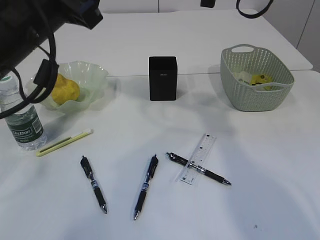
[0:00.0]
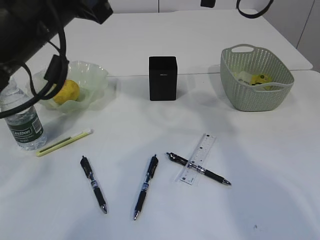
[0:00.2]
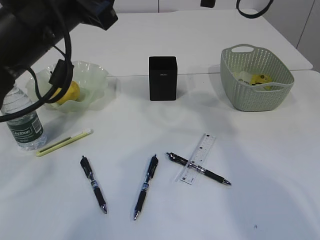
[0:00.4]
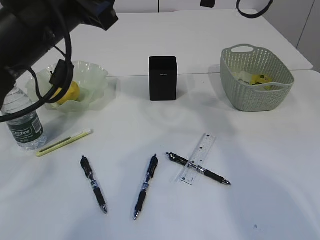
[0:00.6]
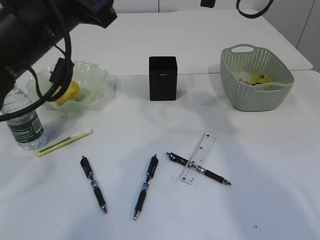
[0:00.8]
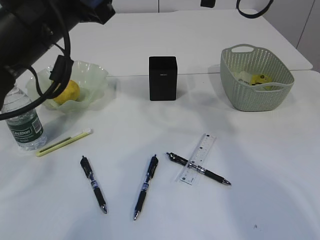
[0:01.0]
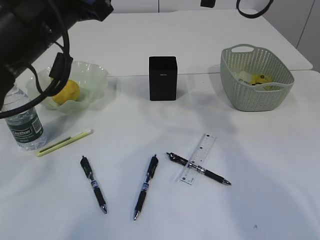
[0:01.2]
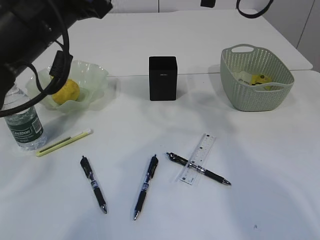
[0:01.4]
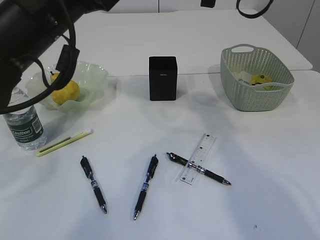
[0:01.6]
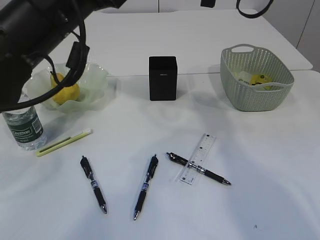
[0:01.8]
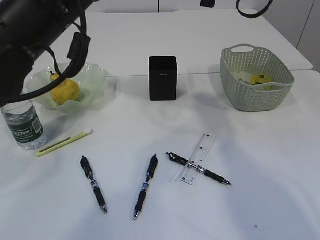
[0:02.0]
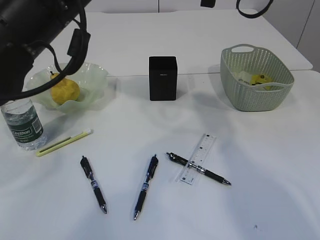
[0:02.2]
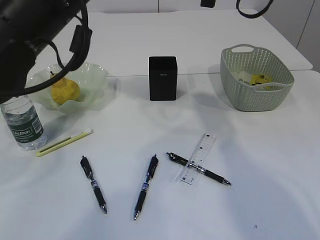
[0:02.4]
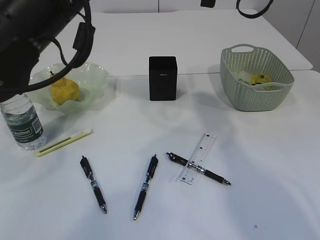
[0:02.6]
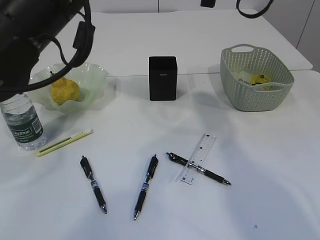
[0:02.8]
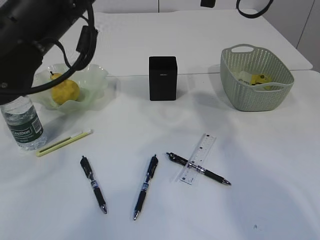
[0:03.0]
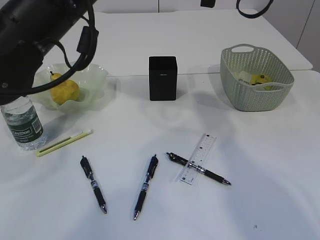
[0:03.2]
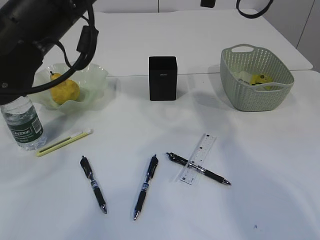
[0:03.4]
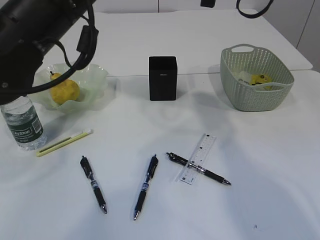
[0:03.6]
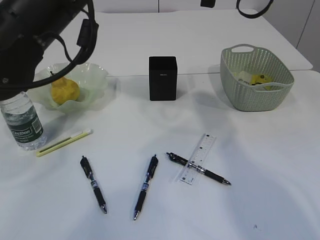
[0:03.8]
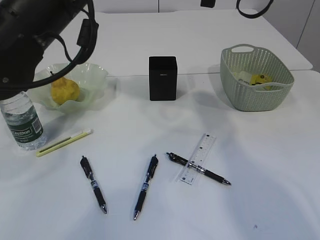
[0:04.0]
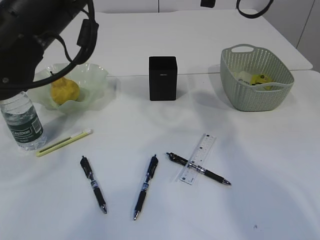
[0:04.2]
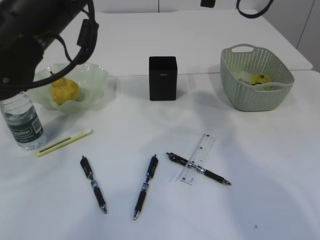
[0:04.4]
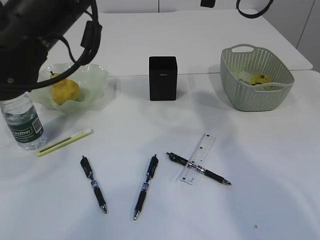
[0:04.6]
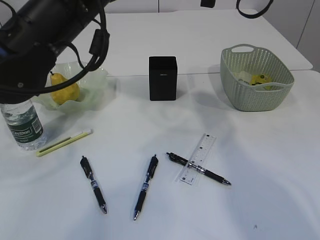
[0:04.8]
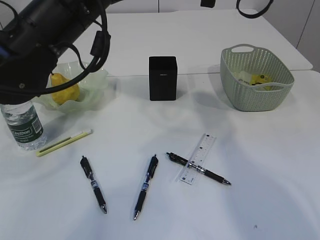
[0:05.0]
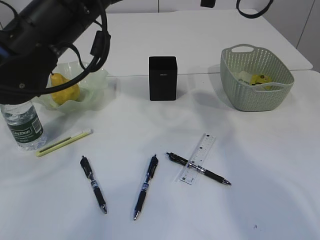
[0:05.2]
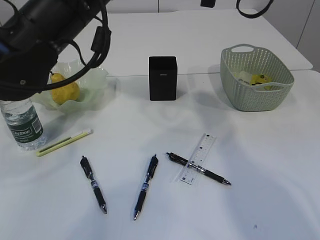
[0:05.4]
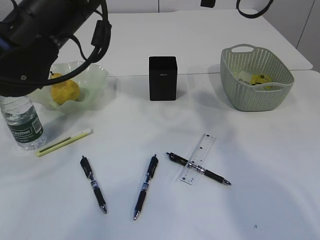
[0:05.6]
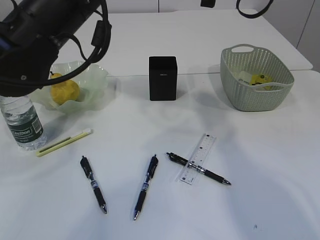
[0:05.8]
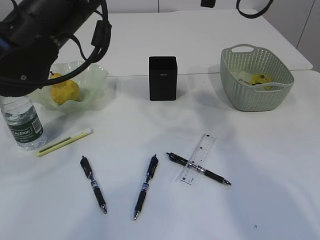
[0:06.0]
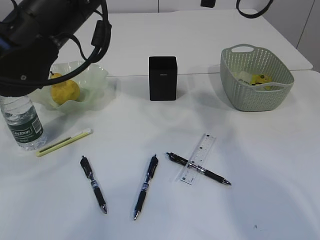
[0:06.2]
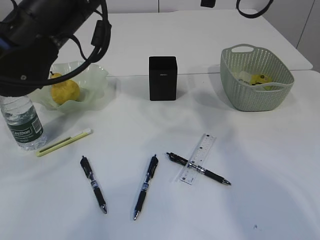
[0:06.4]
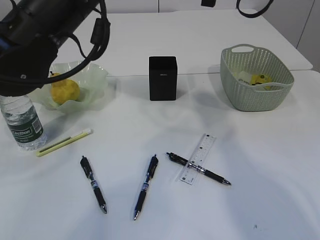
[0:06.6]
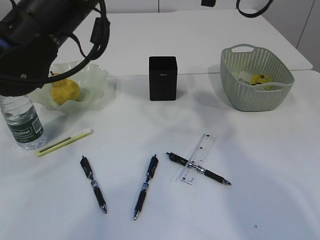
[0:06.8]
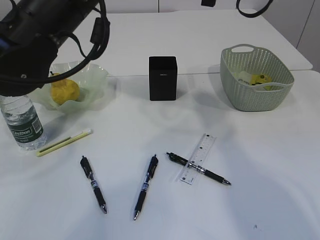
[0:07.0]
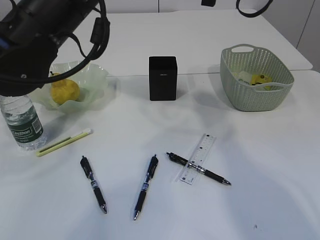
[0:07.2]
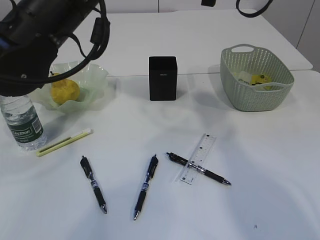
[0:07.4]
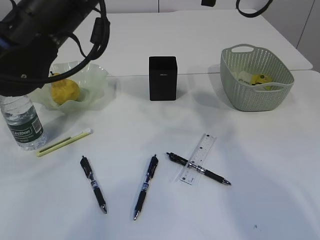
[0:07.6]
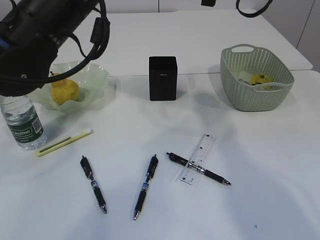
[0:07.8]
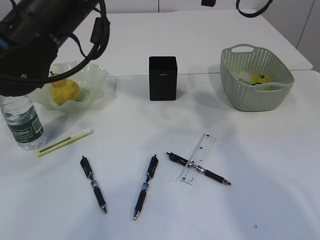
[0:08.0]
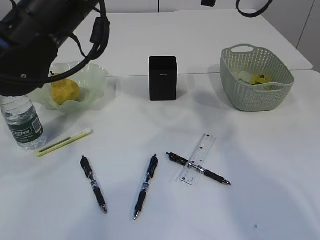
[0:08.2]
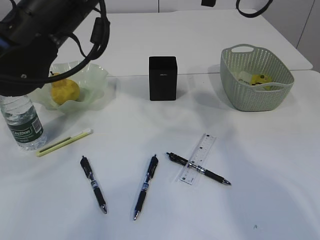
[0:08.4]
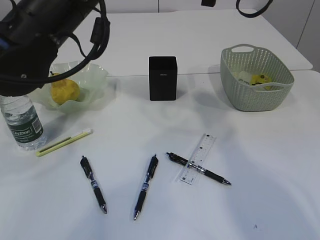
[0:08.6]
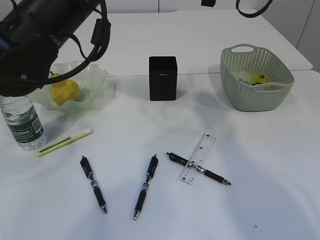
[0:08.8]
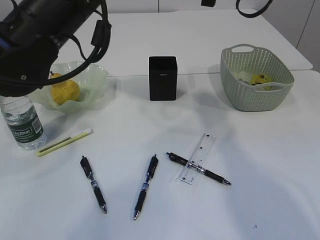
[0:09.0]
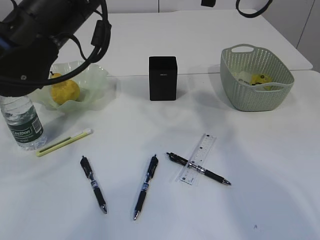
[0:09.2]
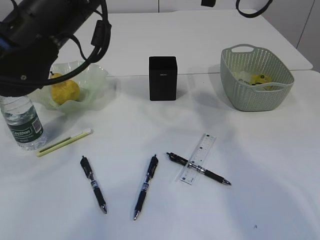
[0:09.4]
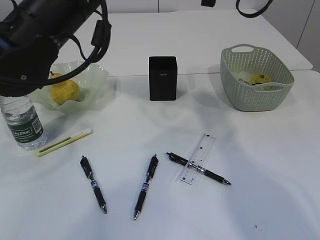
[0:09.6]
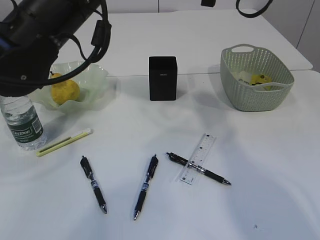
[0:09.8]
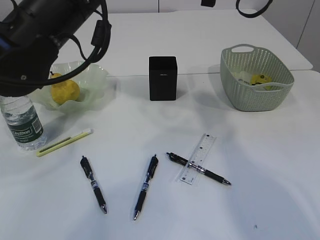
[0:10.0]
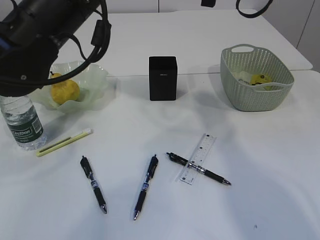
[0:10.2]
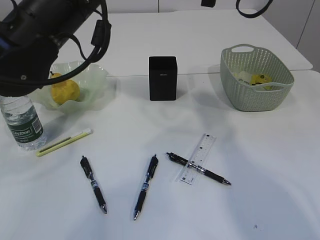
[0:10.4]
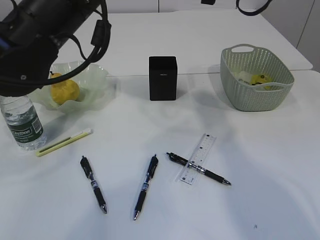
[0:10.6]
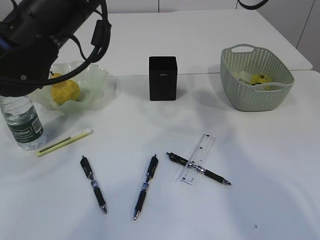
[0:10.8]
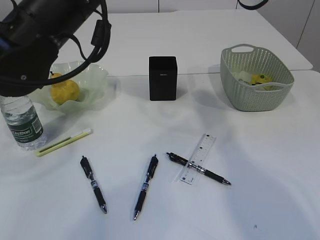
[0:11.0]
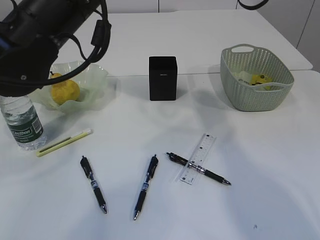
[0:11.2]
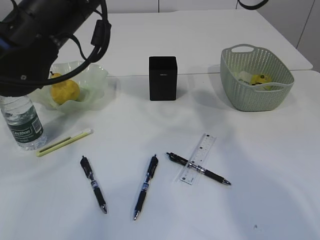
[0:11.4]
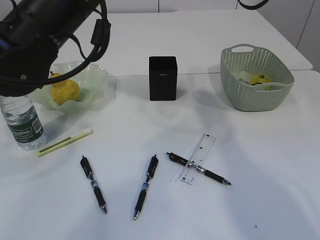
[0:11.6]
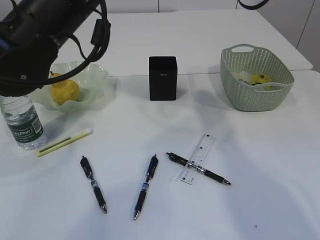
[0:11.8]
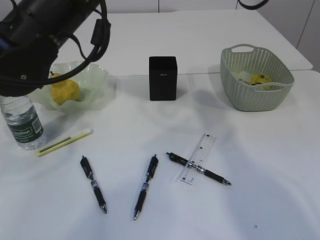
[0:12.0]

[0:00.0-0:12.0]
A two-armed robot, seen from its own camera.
0:00.0 to 0:03.0: There are only small adjustments of the grippers.
0:03.0 to 0:04.4: Both grippers stay put.
0:04.4 to 0:06.0: There are only small adjustments of the grippers.
0:06.0 to 0:12.0: Both grippers stay put.

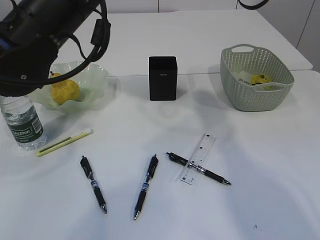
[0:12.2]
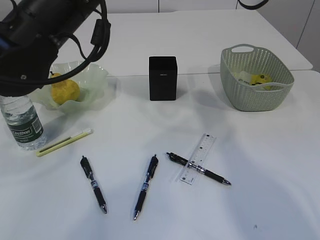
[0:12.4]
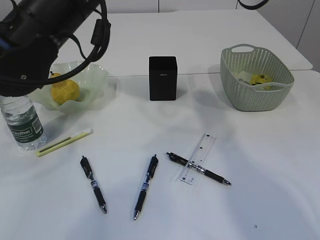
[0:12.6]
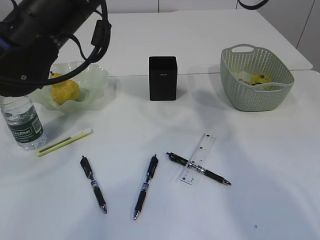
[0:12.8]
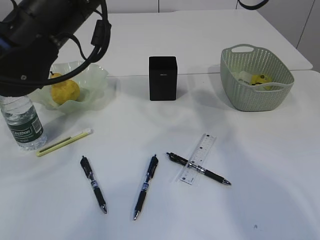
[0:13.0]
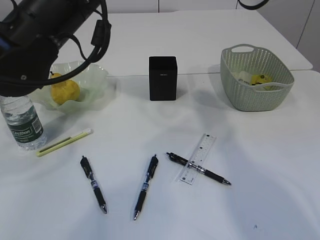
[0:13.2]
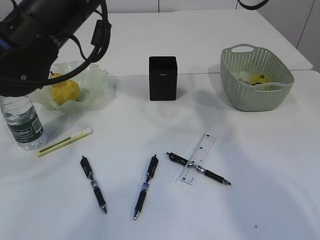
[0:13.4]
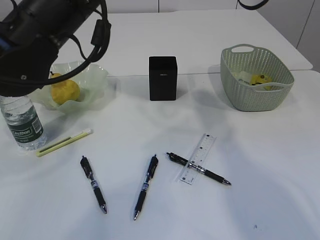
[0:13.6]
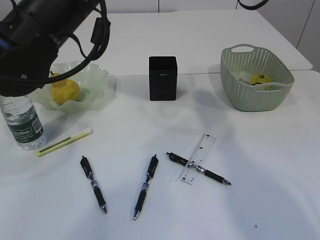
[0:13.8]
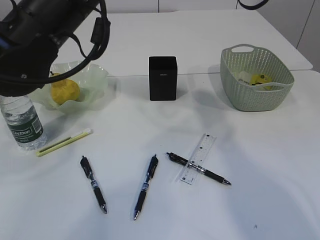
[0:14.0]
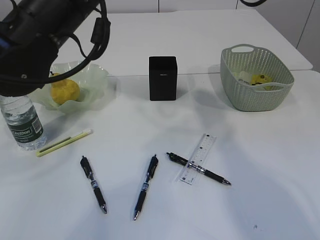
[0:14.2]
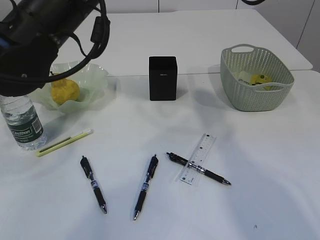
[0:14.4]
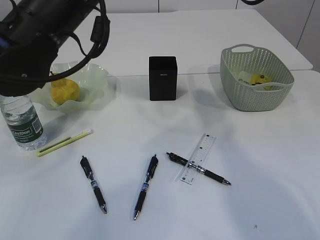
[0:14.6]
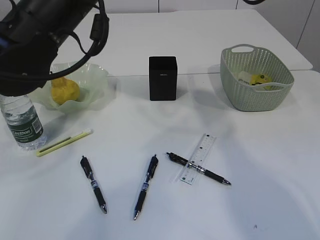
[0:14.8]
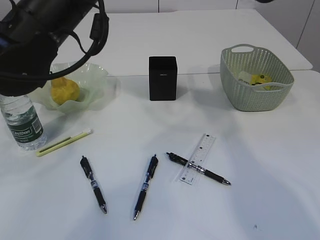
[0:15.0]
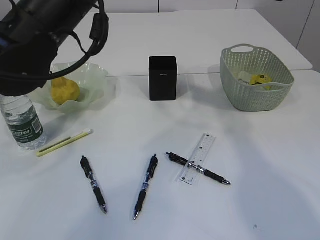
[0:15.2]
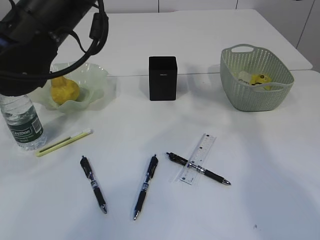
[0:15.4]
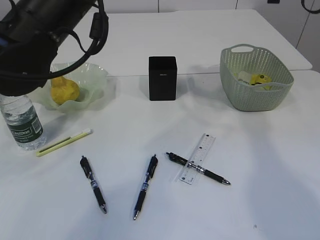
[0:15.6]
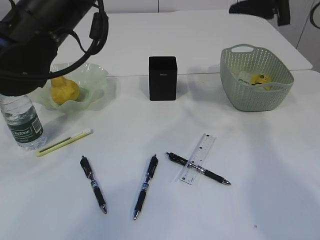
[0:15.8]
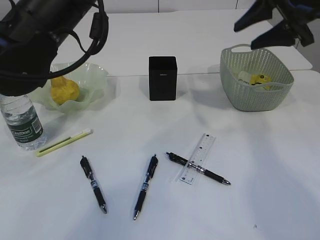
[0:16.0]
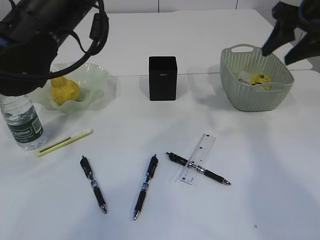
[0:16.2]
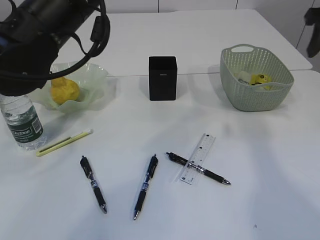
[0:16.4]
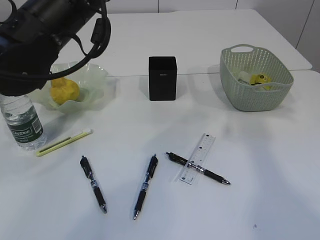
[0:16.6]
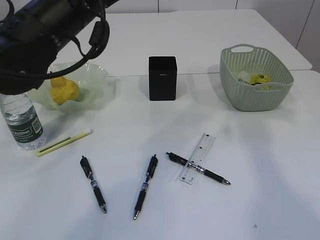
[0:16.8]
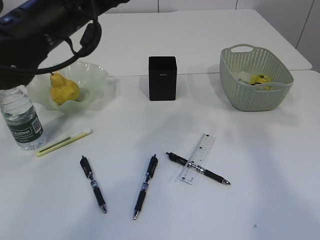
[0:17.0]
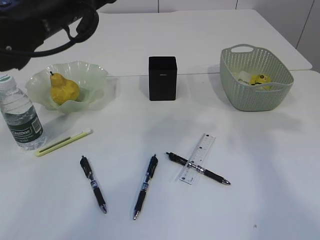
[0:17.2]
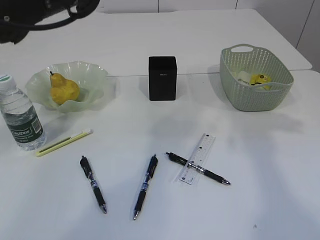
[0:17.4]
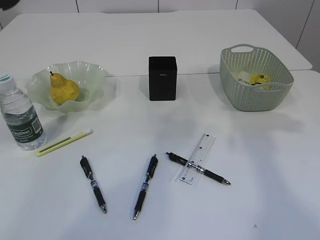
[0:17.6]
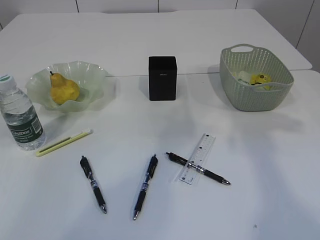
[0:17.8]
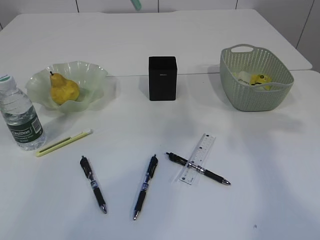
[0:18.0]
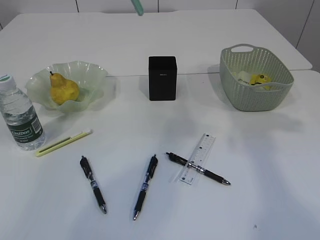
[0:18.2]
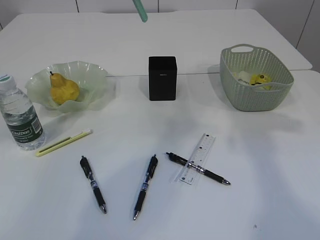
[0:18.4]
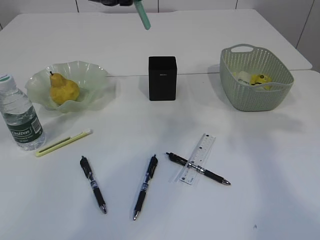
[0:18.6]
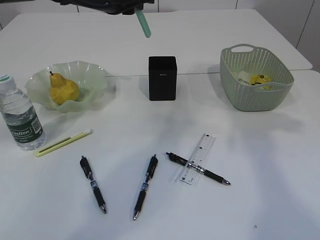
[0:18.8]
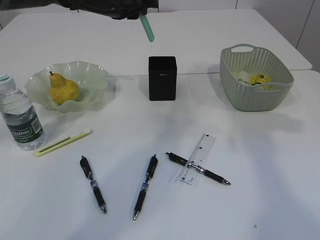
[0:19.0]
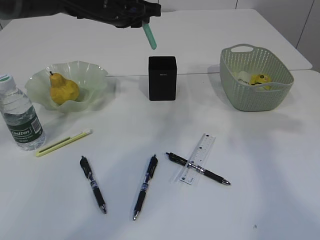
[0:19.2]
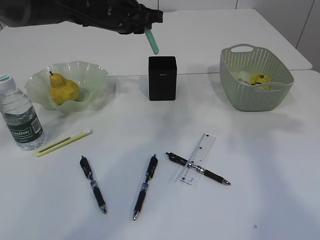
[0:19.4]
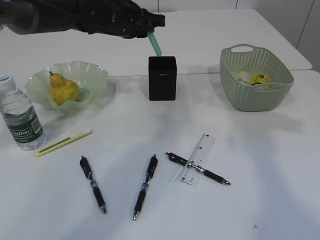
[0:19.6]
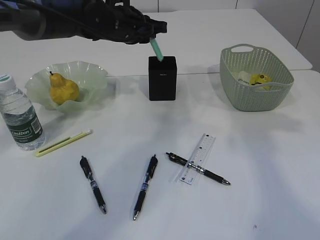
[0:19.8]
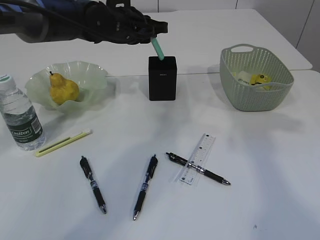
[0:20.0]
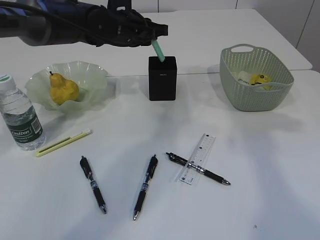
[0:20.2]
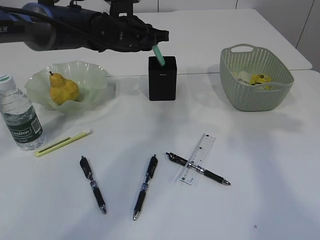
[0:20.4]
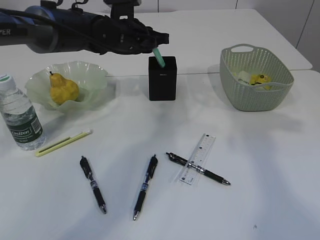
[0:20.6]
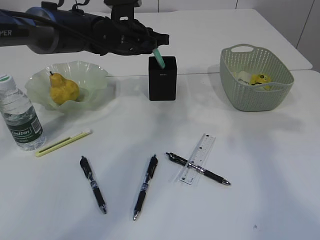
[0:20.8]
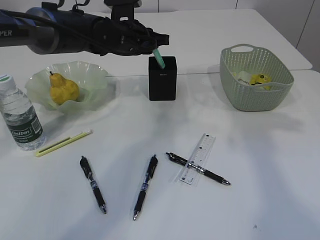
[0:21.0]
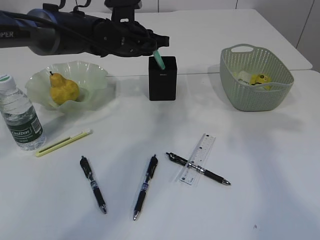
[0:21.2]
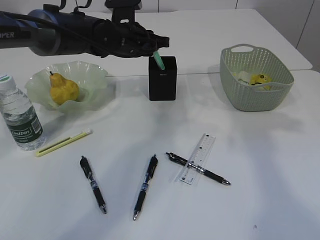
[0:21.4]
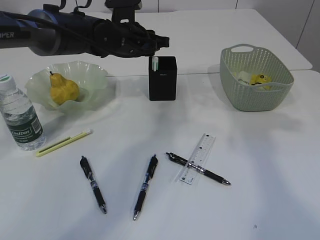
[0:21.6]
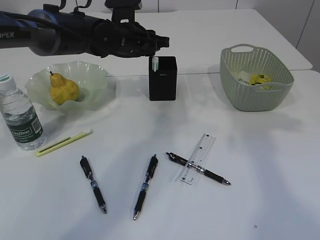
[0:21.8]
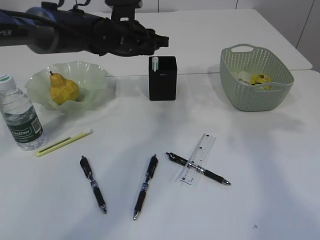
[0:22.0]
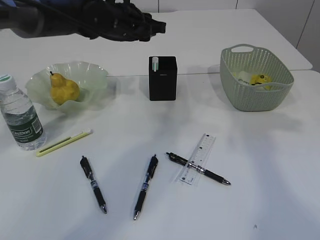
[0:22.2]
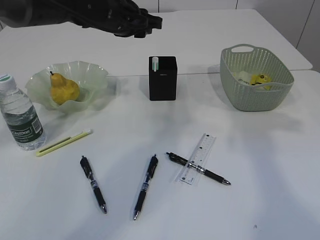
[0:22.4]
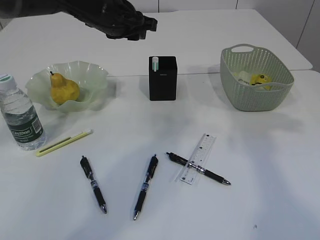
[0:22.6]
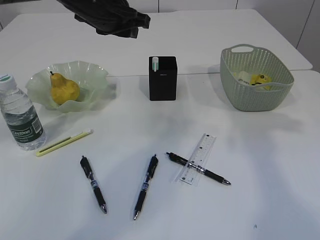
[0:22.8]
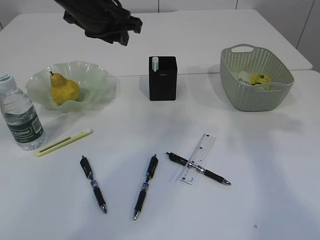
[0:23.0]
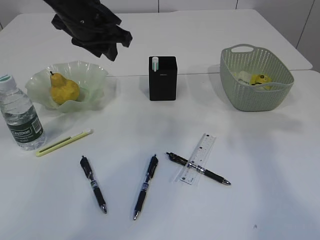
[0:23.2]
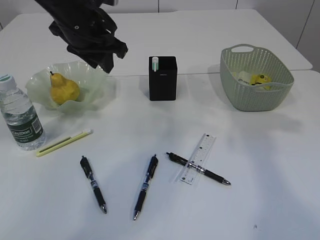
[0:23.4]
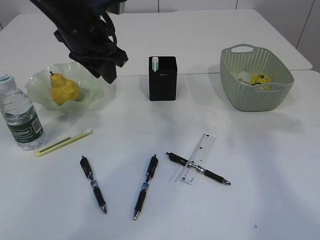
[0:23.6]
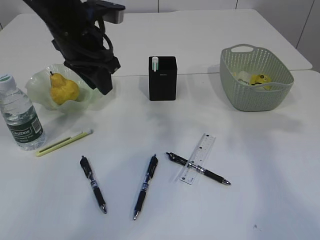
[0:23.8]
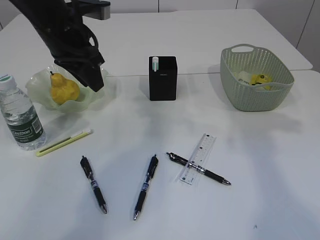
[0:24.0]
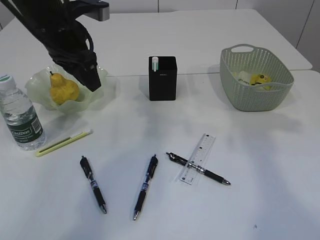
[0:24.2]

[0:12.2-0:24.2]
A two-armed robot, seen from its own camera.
Step, 0:12.2 to 0:16.2: Hand over the blue knife.
Step, 0:16.4 to 0:23.6: Place the blue knife into the pen holder.
0:12.2 to 0:13.8: Neither gripper changes place.
0:13.8 to 0:15.2: The right gripper opens.
0:15.2 to 0:16.6: The right gripper moves to the right, roughly 15 cm.
0:16.6 to 0:18.2: The left gripper moves forward, about 10 cm.
0:18.2 to 0:19.8: The left gripper goes approximately 15 cm downward and forward.
0:19.8 to 0:21.2: There are only small adjustments of the grippers.
0:21.2 to 0:22.6: The left gripper heads upward, covering approximately 5 cm.
0:22.6 to 0:24.2: The left gripper moves to the left and backward, approximately 10 cm.
